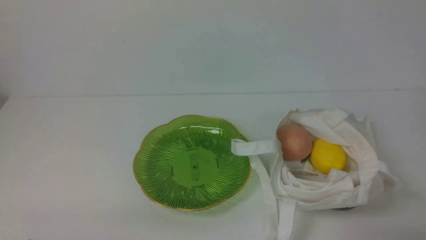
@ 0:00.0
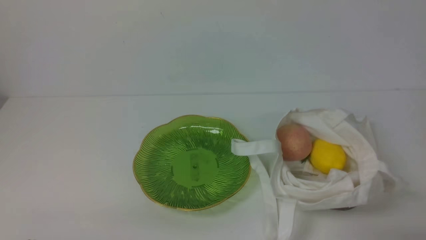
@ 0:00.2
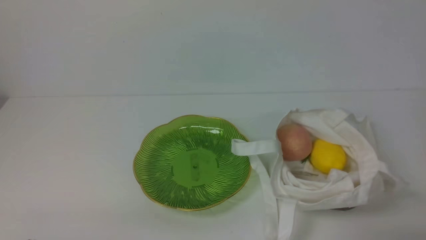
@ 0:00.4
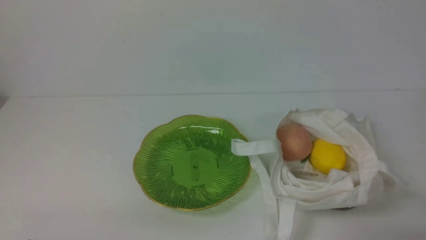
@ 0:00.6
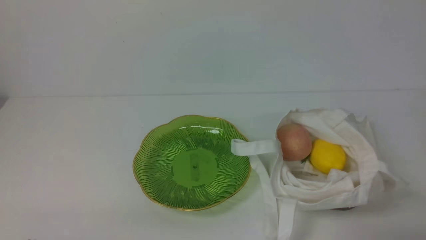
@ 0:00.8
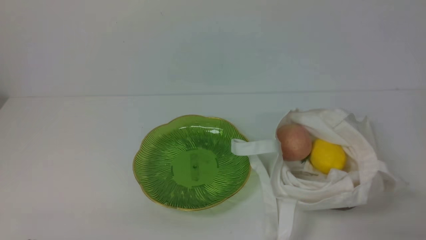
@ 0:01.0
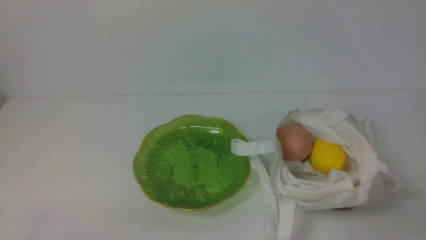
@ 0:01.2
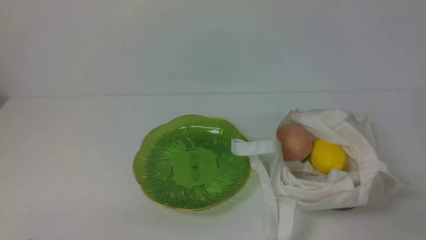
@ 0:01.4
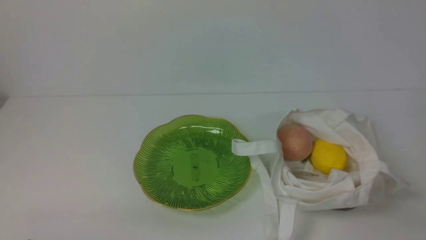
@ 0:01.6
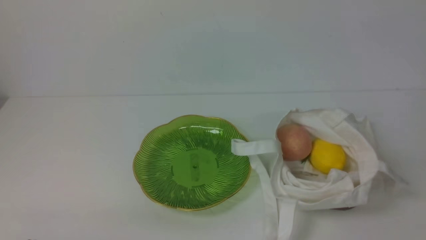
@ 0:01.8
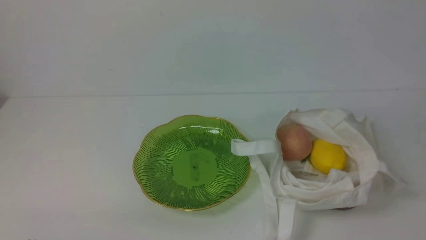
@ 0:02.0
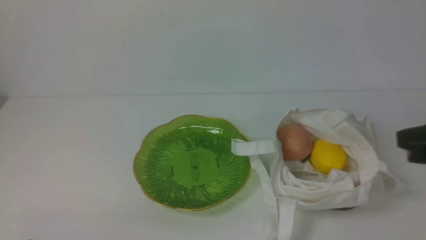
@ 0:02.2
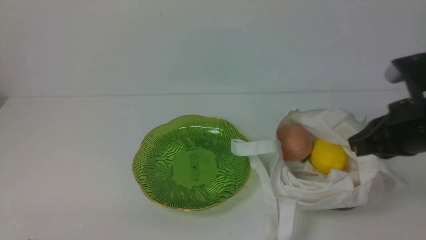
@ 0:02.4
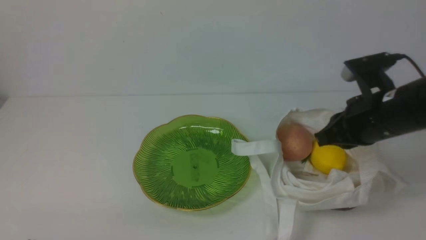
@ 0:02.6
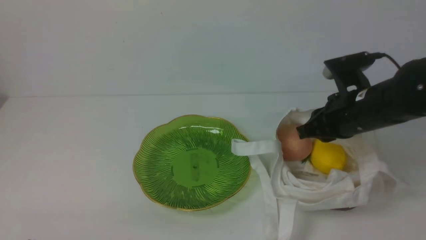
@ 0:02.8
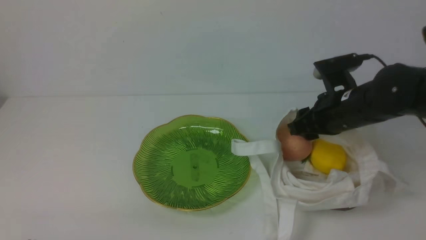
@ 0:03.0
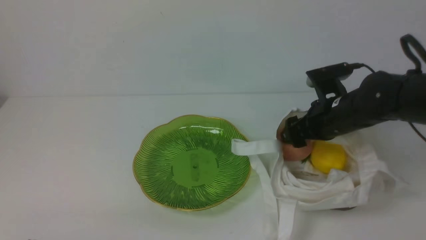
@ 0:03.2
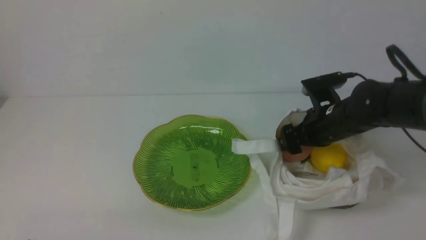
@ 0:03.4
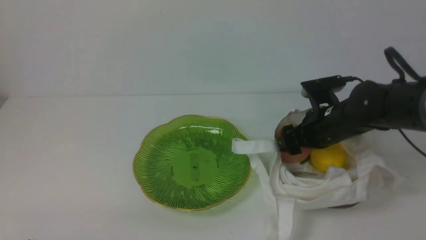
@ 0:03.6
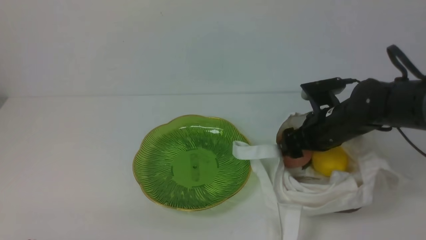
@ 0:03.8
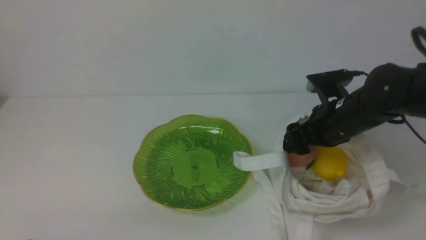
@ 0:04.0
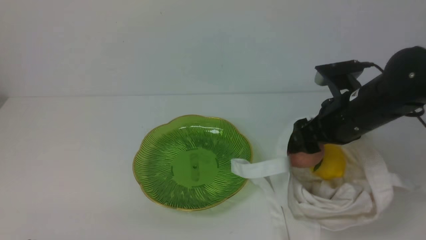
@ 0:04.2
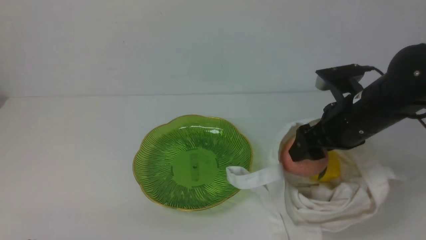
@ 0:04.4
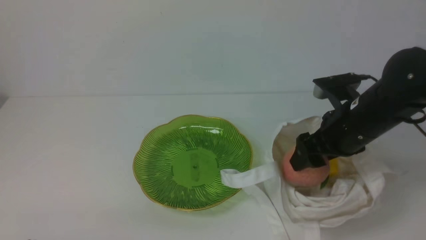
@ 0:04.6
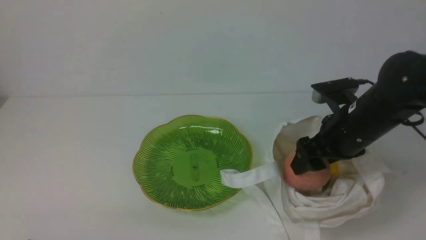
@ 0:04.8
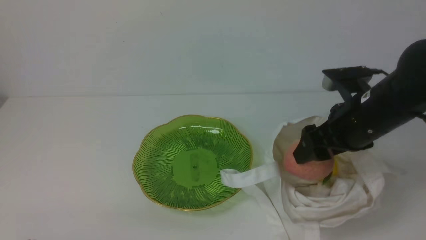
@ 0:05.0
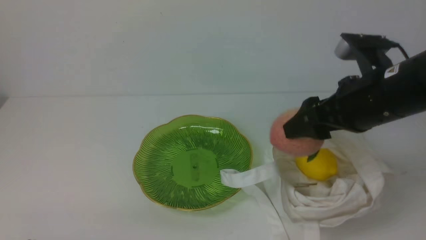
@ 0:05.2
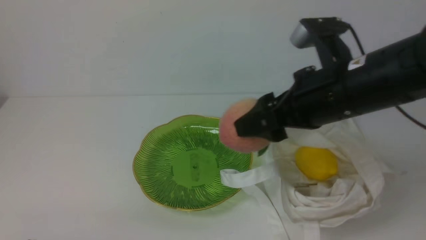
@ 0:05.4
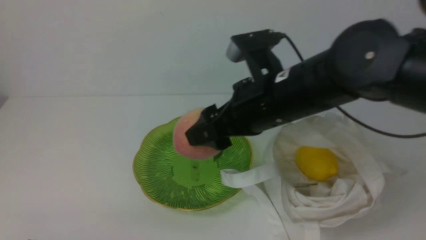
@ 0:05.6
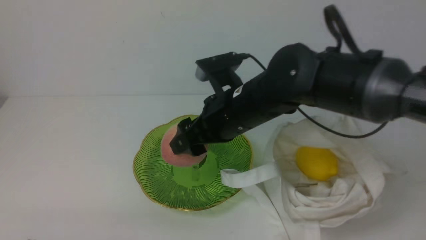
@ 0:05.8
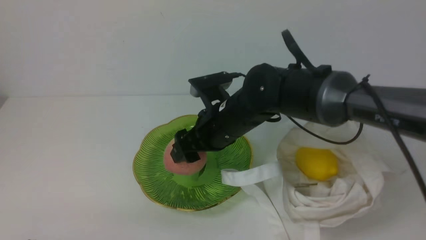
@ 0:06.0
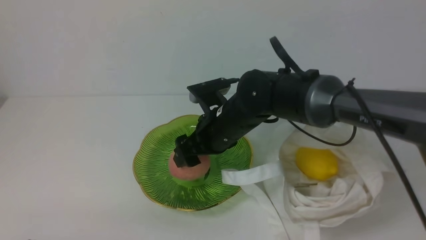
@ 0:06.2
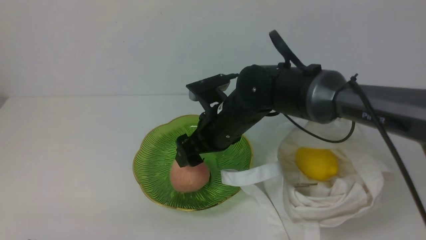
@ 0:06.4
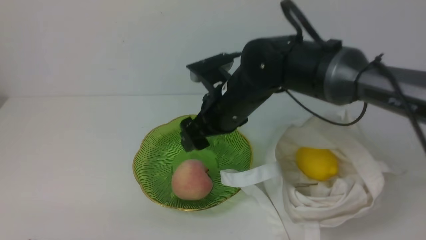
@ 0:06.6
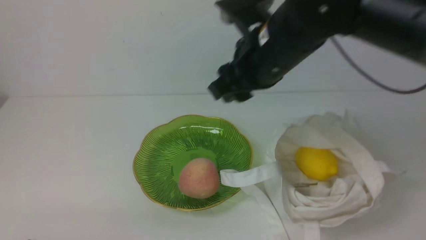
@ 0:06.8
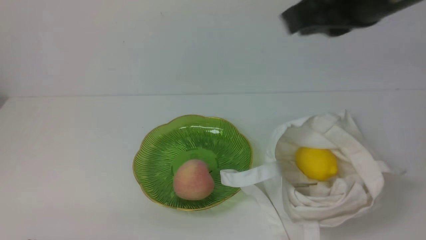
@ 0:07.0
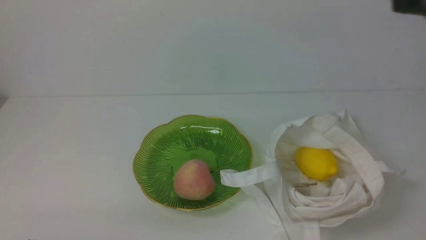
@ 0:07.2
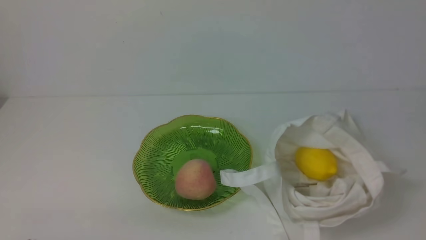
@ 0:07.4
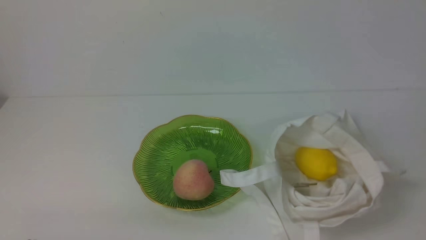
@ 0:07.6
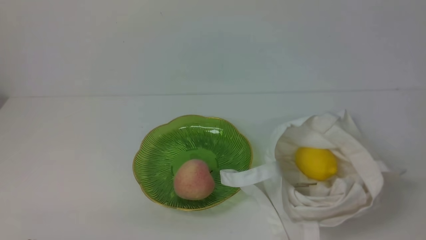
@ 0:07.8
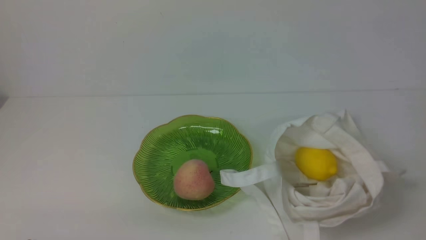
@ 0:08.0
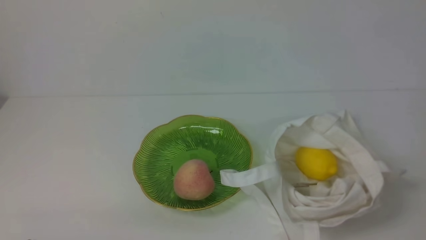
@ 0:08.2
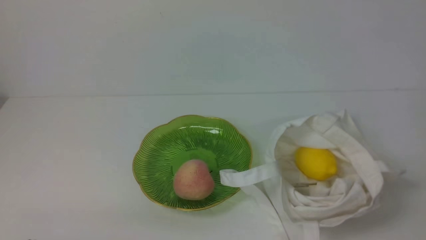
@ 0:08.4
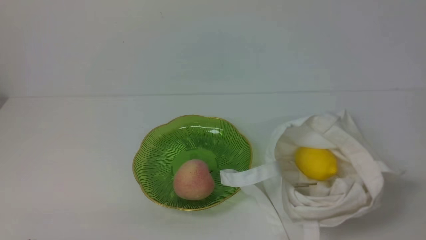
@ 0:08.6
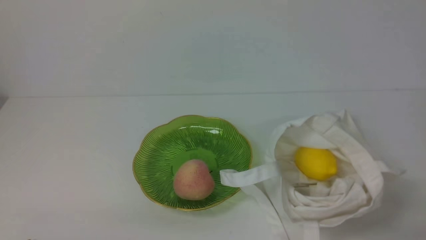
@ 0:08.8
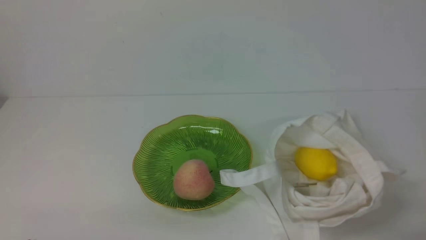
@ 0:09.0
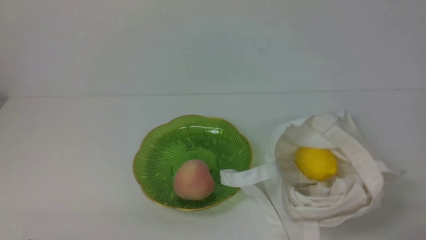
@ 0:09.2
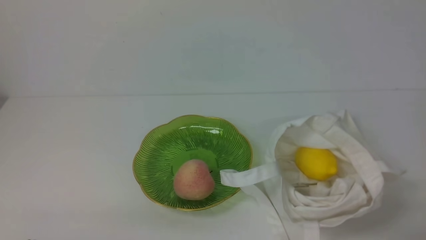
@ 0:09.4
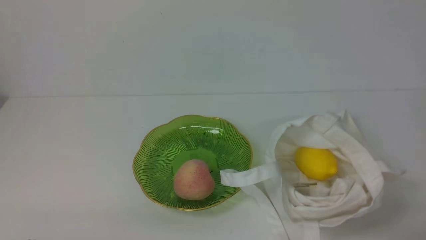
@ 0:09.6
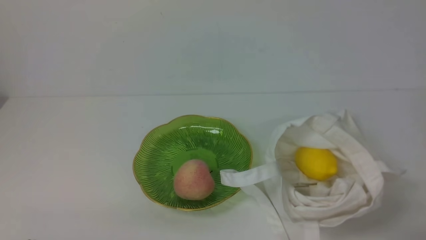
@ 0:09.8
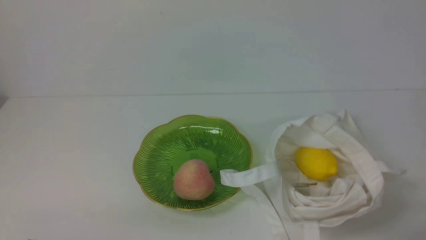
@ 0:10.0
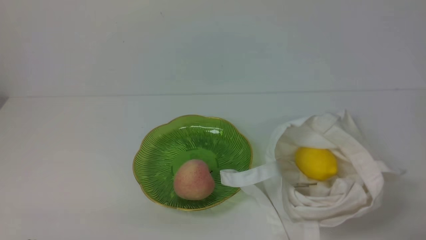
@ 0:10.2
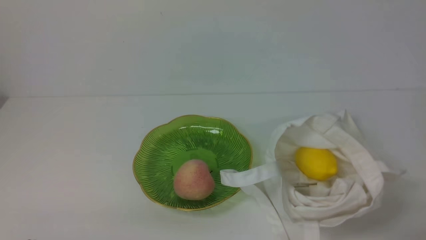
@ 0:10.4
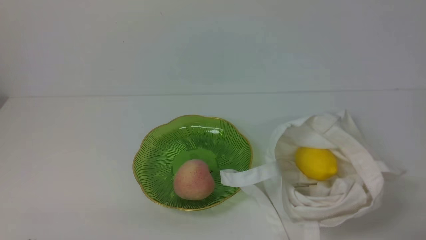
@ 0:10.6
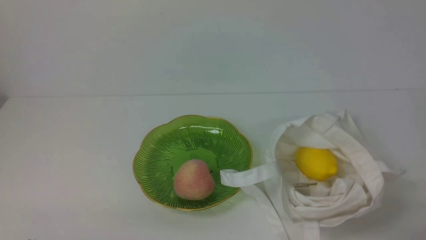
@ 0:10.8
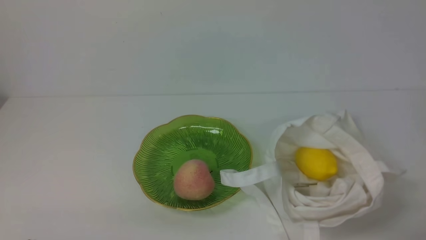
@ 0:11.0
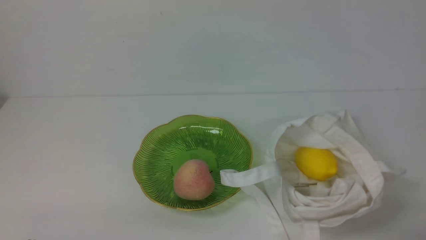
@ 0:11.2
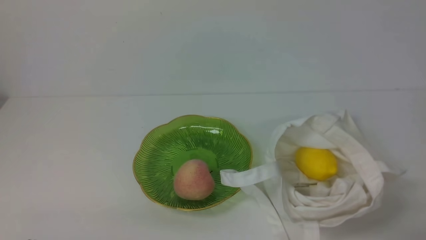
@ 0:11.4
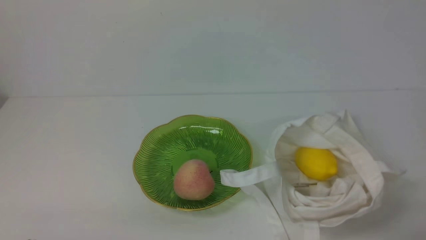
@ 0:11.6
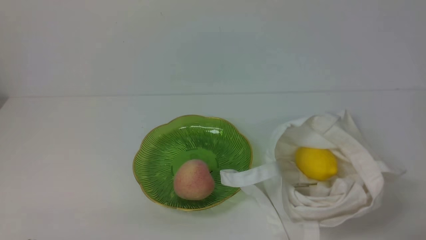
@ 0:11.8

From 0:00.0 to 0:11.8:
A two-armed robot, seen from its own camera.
Step, from 0:00.0 to 0:04.4: use the right arm to grab a peach from the bag.
Step, from 0:04.6 to 0:06.2: use the right arm to put the peach into the empty plate on the left.
From 0:01.4 to 0:03.0: The right gripper shifts roughly 30 cm forward and to the left, and opens.
From 0:03.0 to 0:04.4: The grippers stay close to where they were, moving slightly.
From 0:04.4 to 0:06.0: The right gripper shifts some 20 cm to the left.
From 0:06.0 to 0:07.4: The right gripper goes about 40 cm backward, to the right and upward, and closes.
From 0:10.4 to 0:11.8: Both grippers stay put.
